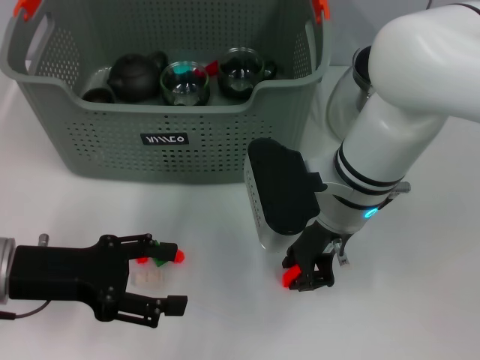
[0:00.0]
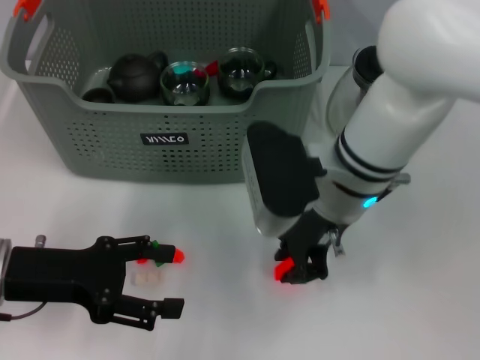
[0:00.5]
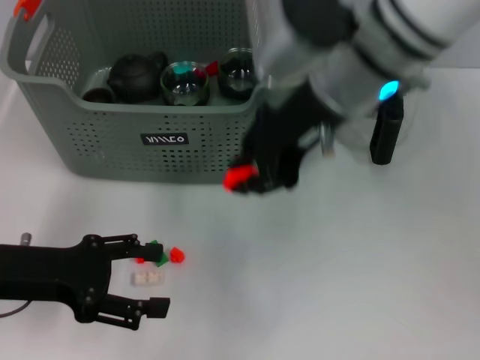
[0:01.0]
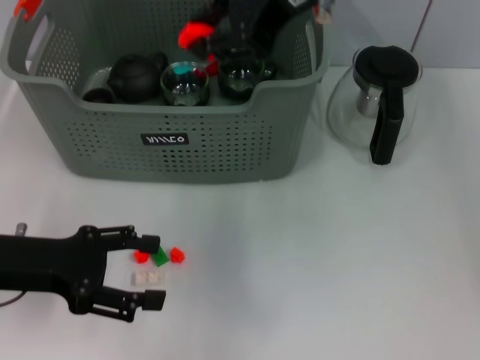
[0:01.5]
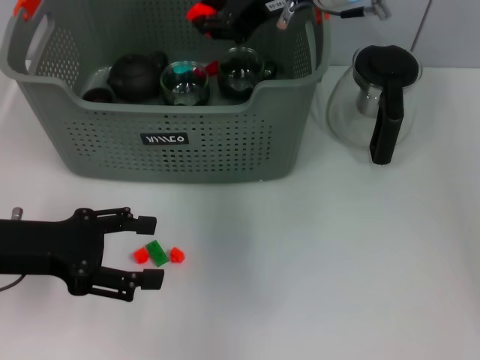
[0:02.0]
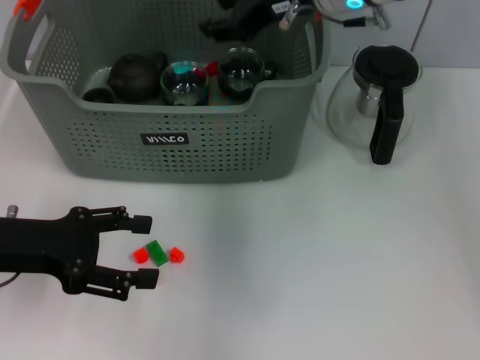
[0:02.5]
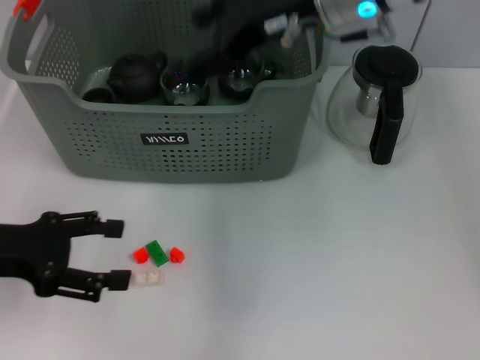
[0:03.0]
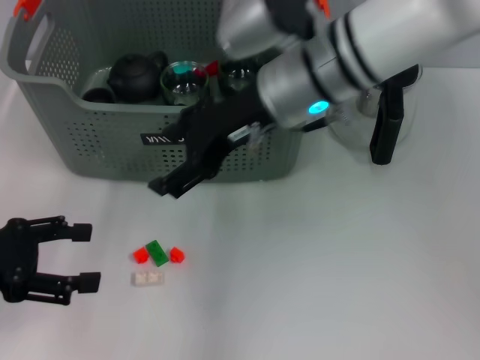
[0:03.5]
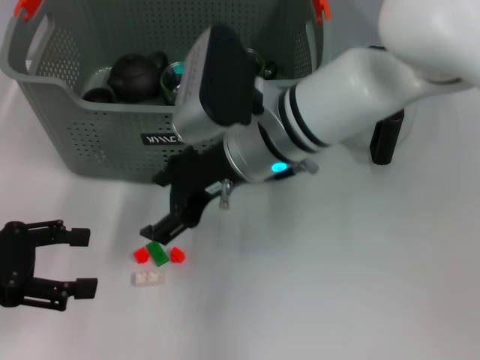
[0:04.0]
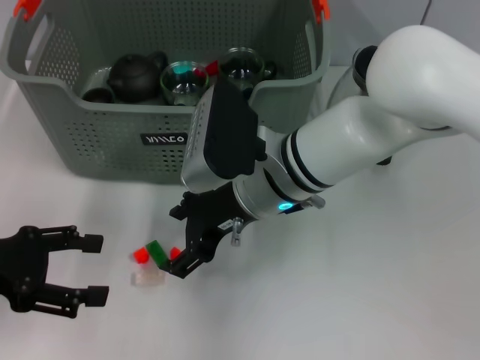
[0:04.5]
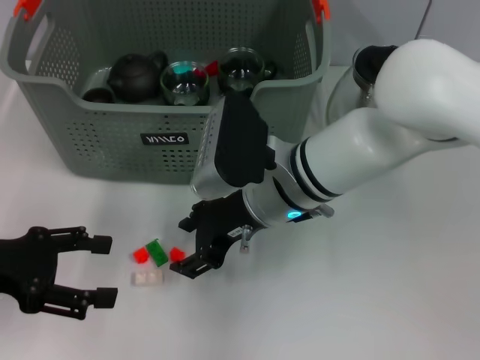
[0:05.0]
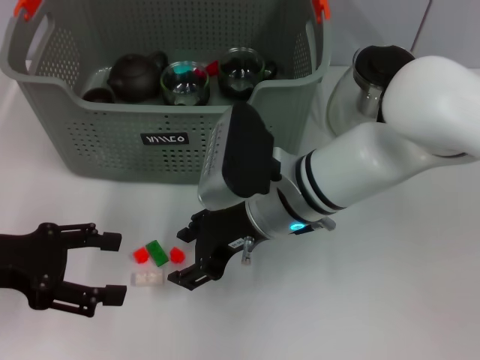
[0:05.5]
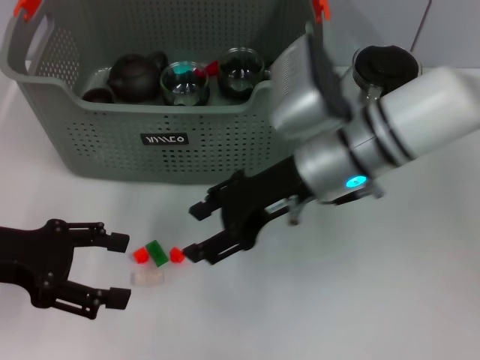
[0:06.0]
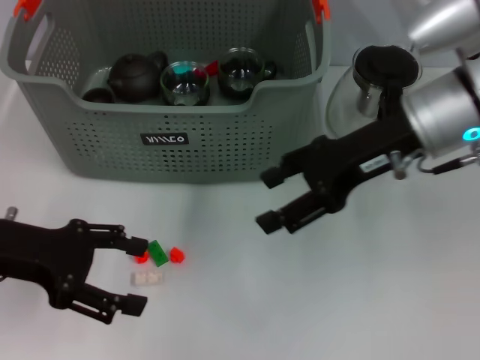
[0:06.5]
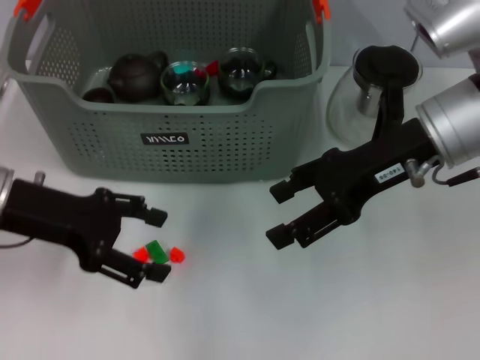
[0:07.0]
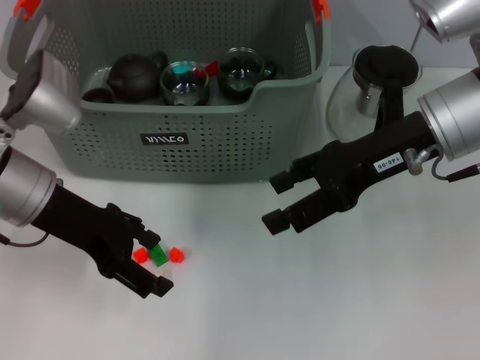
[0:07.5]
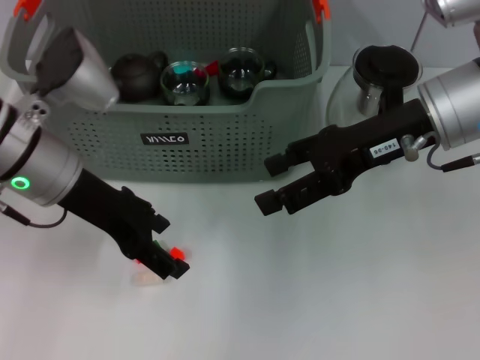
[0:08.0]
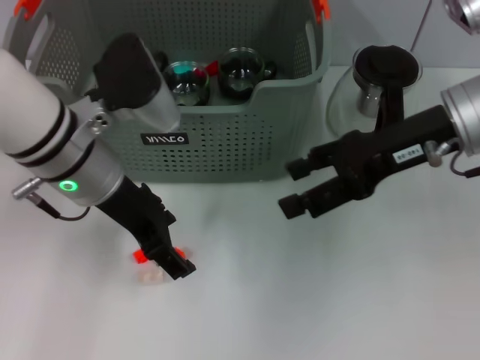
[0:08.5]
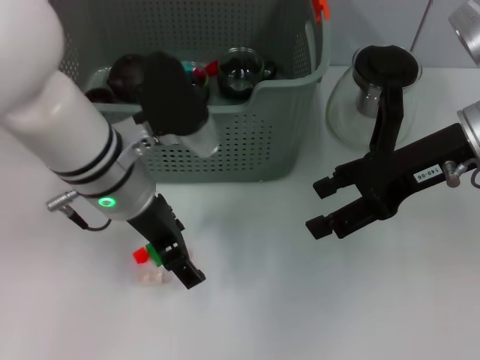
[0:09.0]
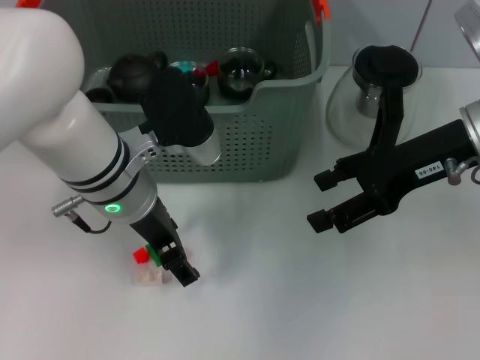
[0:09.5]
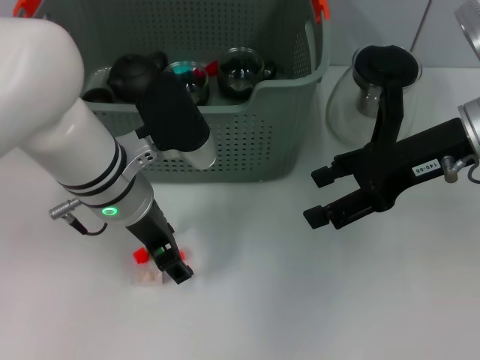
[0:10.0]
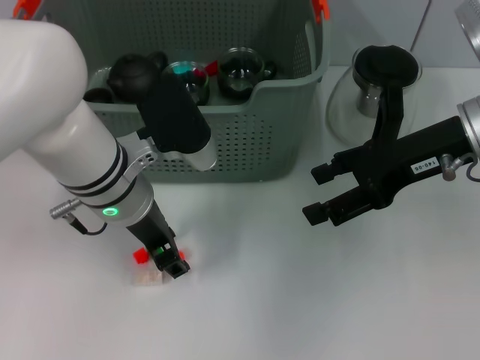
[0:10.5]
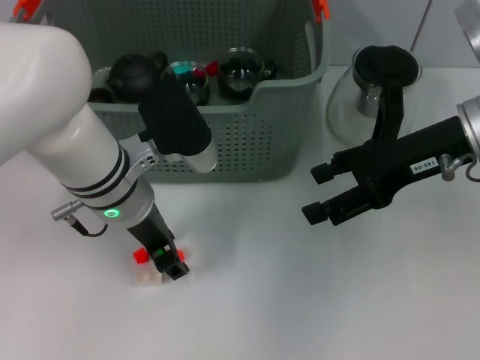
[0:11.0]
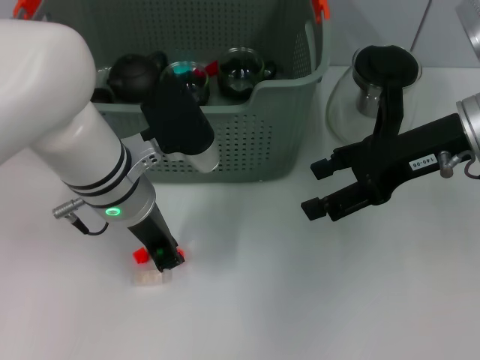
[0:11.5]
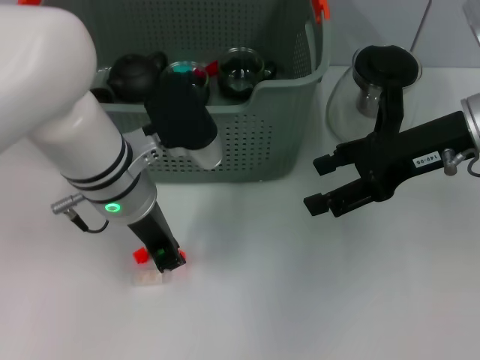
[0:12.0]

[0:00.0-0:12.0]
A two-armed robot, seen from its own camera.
Task of the whole recording: pick up the teacup on the table and place it into the storage bin, pick up the block on the table and place it into the storage bin.
Step, 0:01.0 to 0:02.5: Place the orange block in the storage box with right gripper.
Step, 0:03.0 to 0:12.0: Grasp the orange block with left gripper.
0:00.0 to 0:02.0: The right gripper goes approximately 15 cm upward and forward.
0:02.0 to 0:04.0: The left gripper moves to the left, some 5 cm, while the right gripper heads downward, backward and to the left, covering about 15 cm, and opens up.
0:04.0 to 0:06.0: The right gripper goes some 5 cm to the right.
0:06.0 to 0:08.0: The right gripper goes approximately 10 cm to the right and upward, while the left gripper moves to the right and forward, roughly 15 cm.
0:08.0 to 0:10.0: The left gripper shifts approximately 5 cm to the right.
0:10.0 to 0:12.0: The left gripper closes.

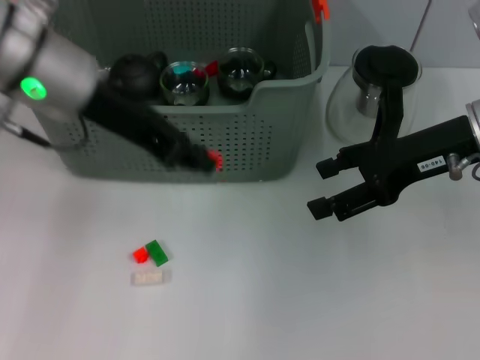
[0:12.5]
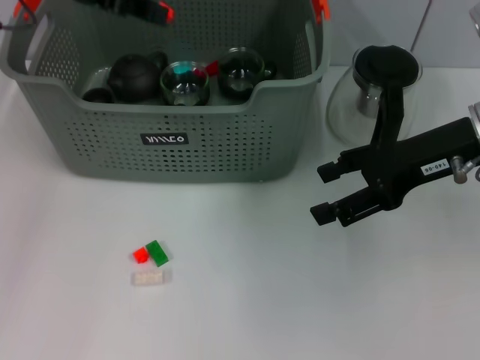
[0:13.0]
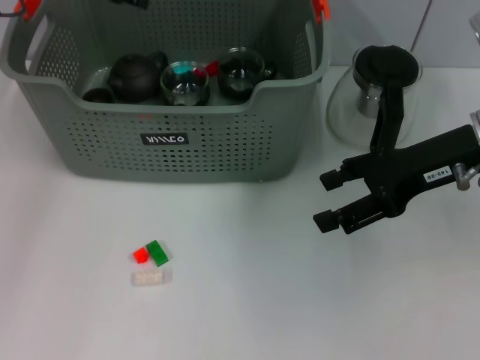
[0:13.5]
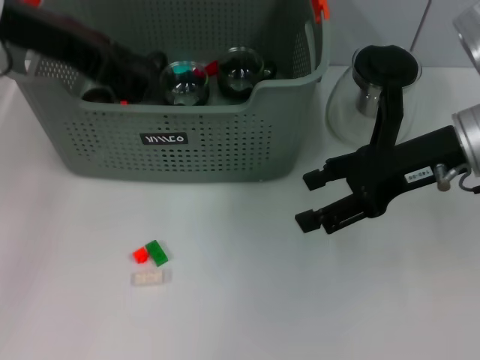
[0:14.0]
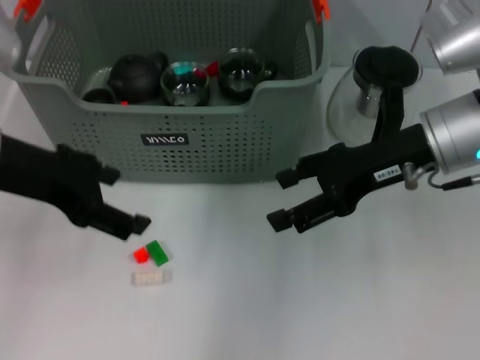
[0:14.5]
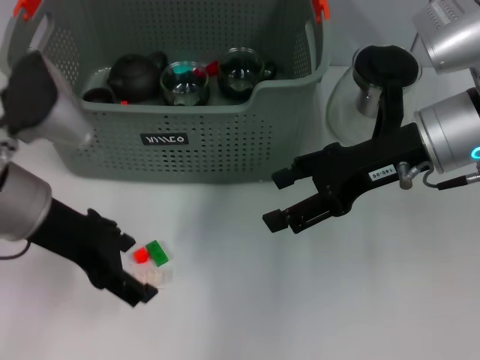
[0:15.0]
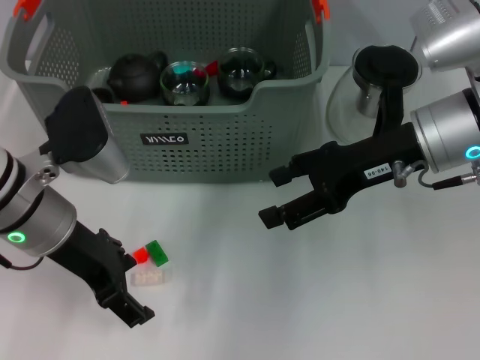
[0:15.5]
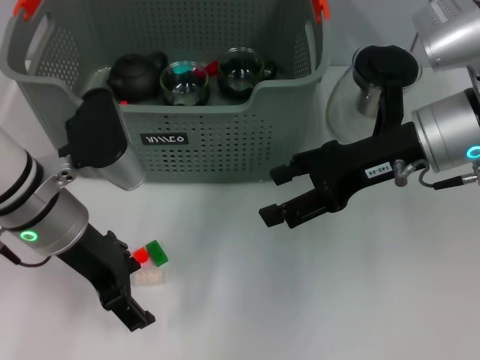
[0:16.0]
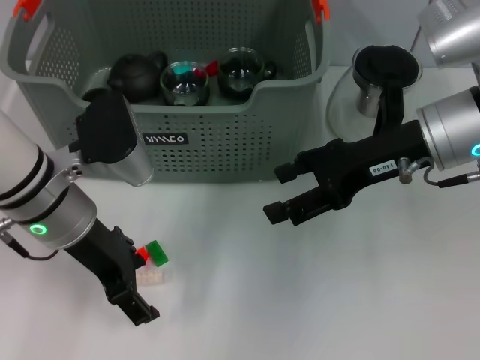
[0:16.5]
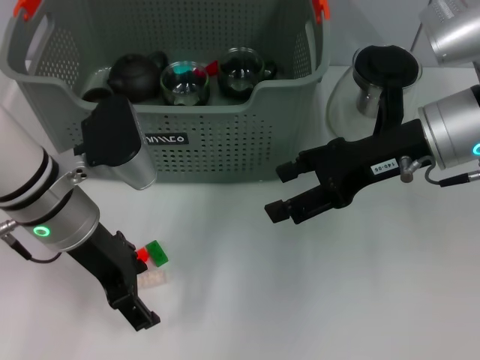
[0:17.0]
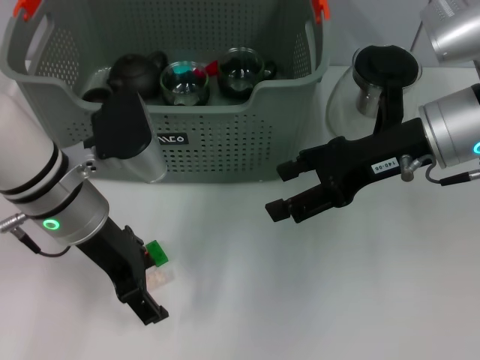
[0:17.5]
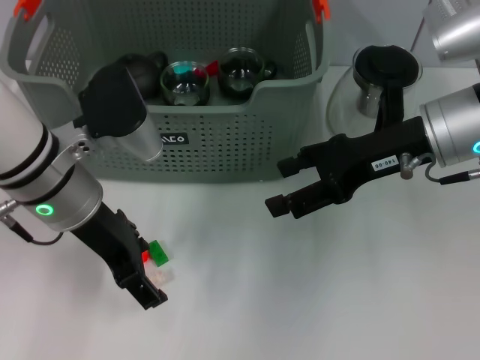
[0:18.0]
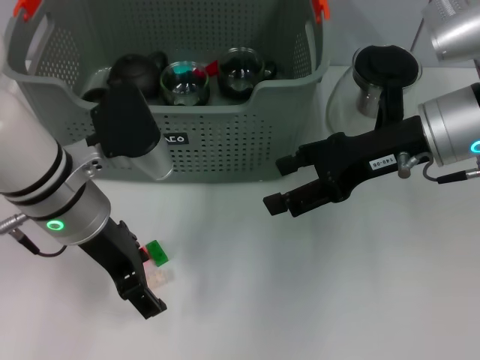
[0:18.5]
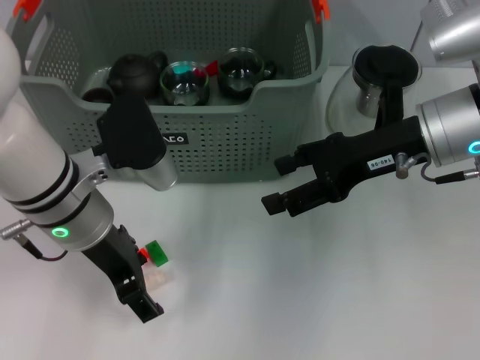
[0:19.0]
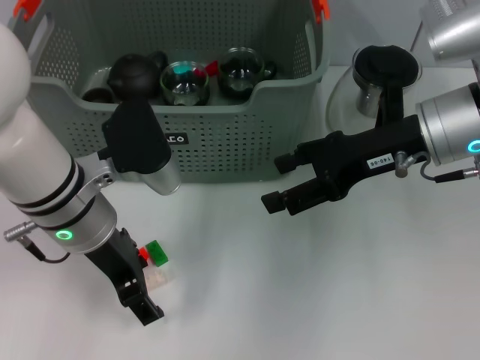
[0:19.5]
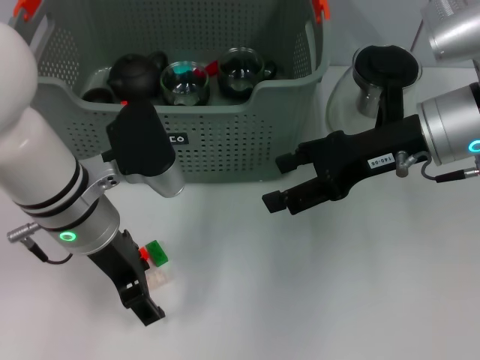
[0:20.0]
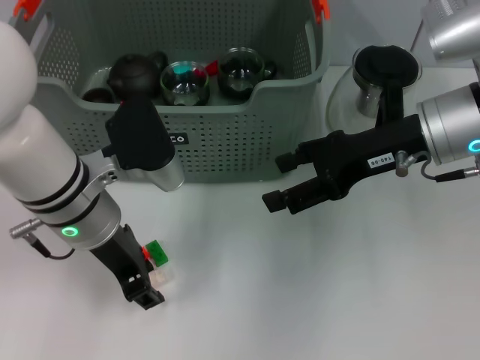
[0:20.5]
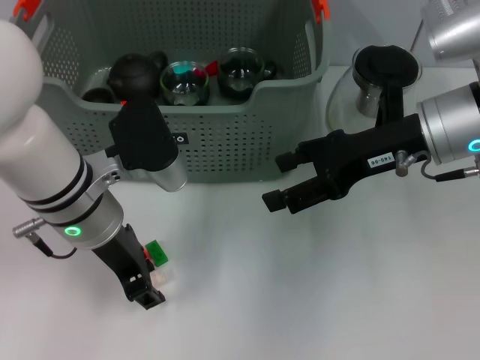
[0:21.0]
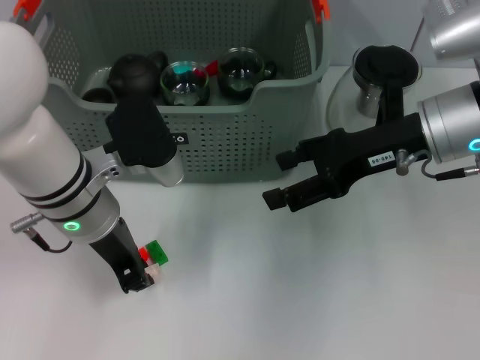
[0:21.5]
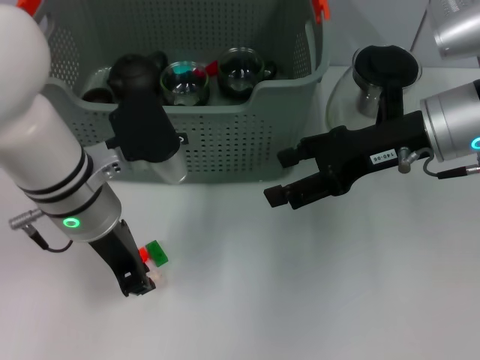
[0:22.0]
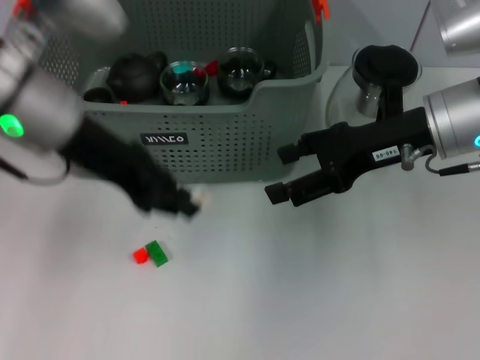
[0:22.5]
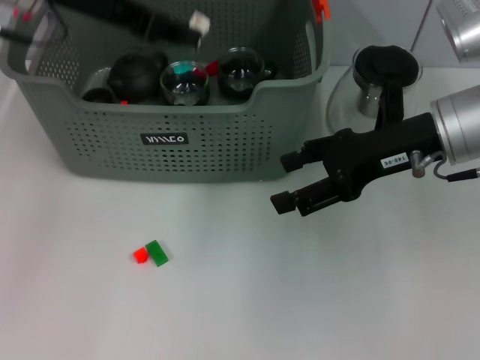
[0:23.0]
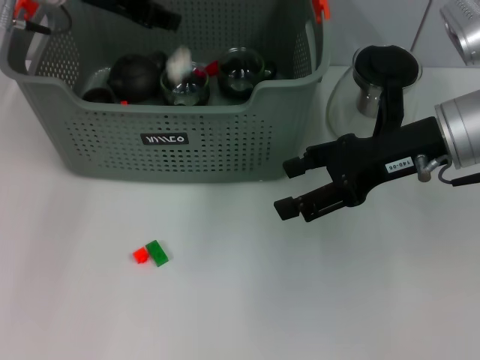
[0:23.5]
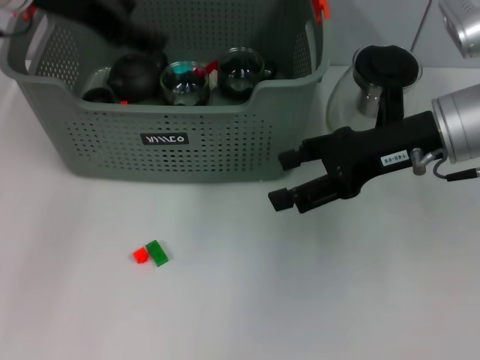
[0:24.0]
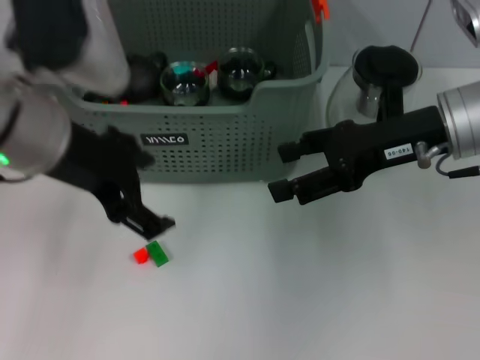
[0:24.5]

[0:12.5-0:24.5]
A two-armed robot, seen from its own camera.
Task of the whole recording: pick up the teacup on the table and place it into the storage bin, pick up the block on the table and place it into the storage bin.
Step, 0:12.5 to 0:13.5: Place the orange block in the storage box with left gripper.
Step, 0:14.0 to 0:22.0: Grasp the white block with left gripper.
Step, 0:22.5 to 0:23.5: Place the white block in the storage box with left gripper.
0:12.5 to 0:14.5: The left gripper goes approximately 10 cm to the left and backward, and opens.
0:14.5 to 0:16.5: The left gripper shifts roughly 10 cm downward and to the right.
0:16.5 to 0:20.5: The grippers move only a little.
0:20.5 to 0:22.5: The left gripper moves upward, about 10 cm, and closes.
0:22.5 to 0:24.5: The left gripper travels forward and back again, some 10 cm each way, and opens its fingers.

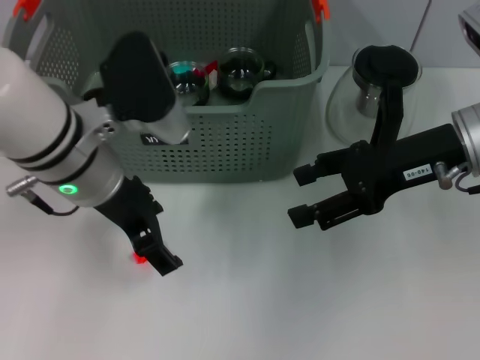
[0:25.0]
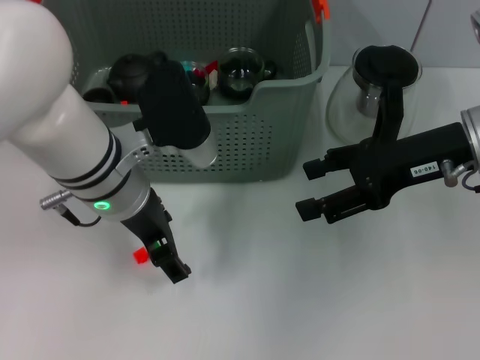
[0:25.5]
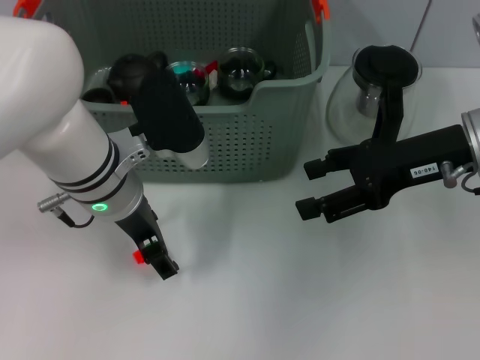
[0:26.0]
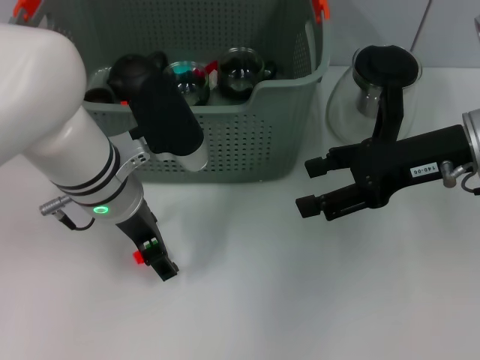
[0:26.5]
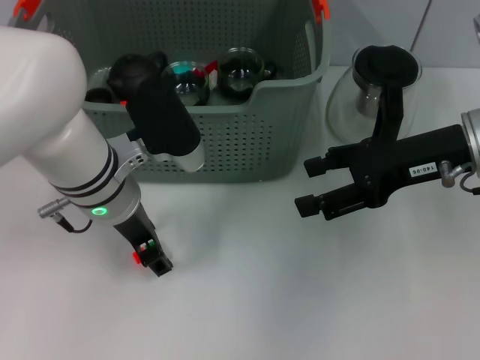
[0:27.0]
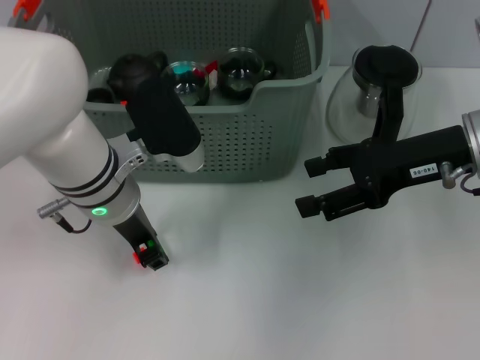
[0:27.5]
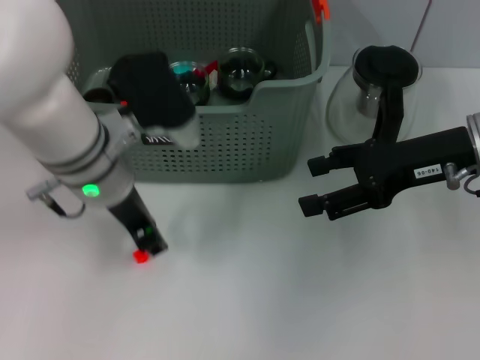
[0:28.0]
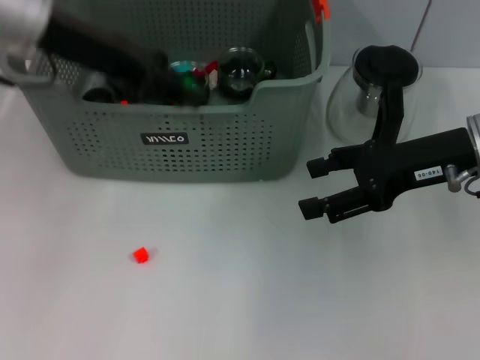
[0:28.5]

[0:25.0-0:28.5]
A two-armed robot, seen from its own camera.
Task of the whole recording: pick up the teacup on the table and place it into the storage bin, pick up the block on the table and place it into the storage bin.
Step, 0:25.0 to 0:27.5: Grasp the green block with left gripper.
0:25.0 to 0:27.0: The left gripper heads downward, covering approximately 5 cm.
0:27.0 to 0:28.5: The left gripper heads upward and to the left, covering roughly 15 cm, and closes its fingers.
